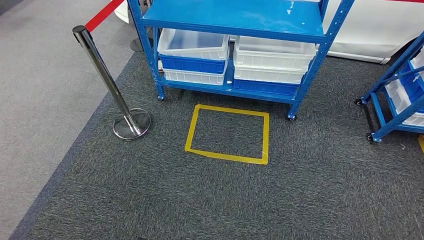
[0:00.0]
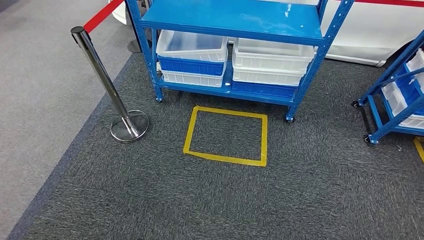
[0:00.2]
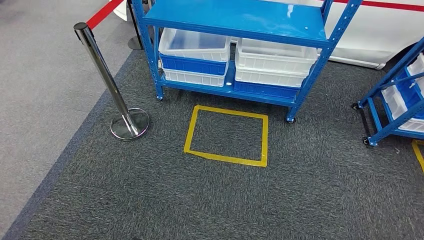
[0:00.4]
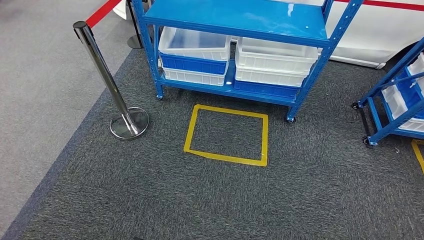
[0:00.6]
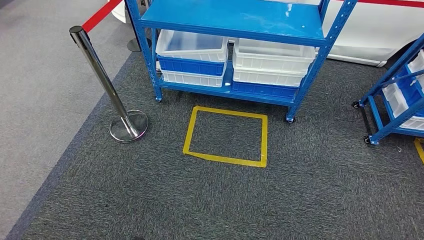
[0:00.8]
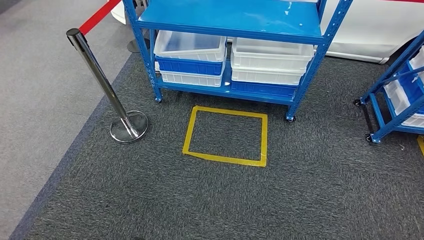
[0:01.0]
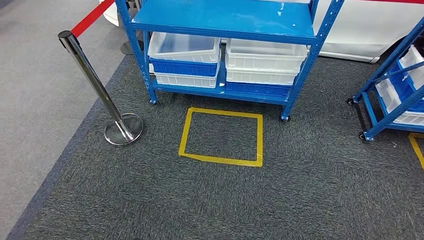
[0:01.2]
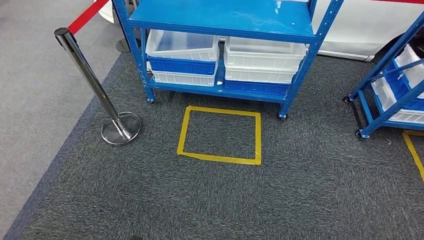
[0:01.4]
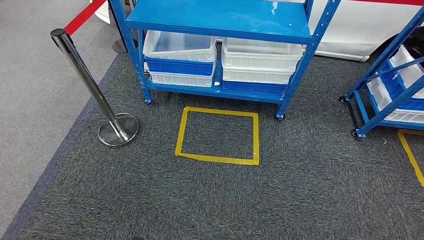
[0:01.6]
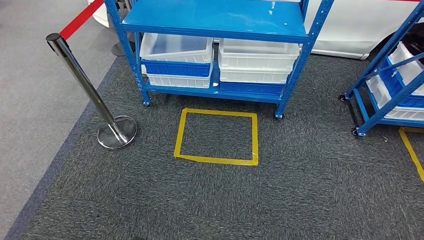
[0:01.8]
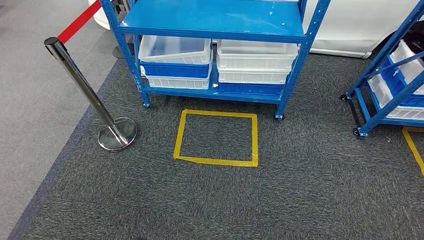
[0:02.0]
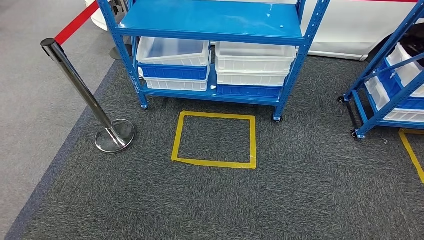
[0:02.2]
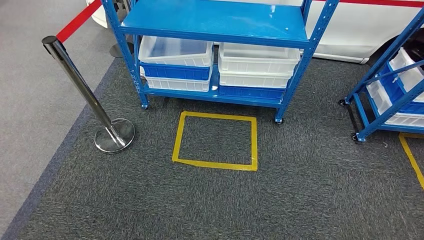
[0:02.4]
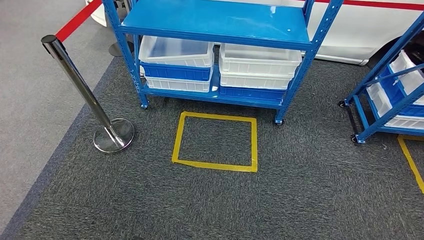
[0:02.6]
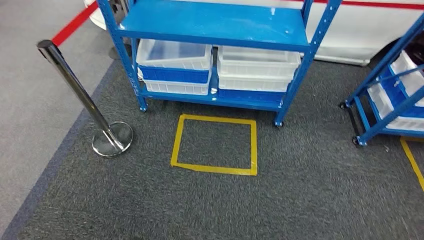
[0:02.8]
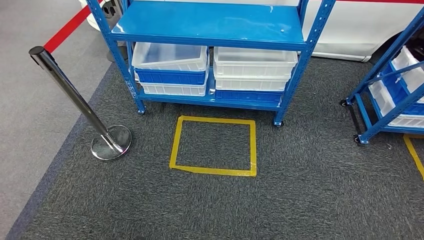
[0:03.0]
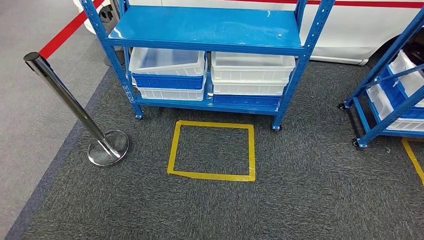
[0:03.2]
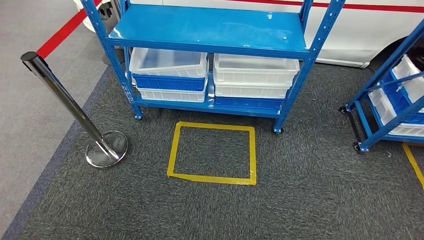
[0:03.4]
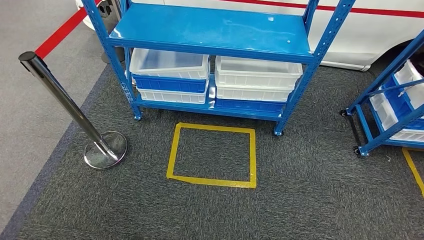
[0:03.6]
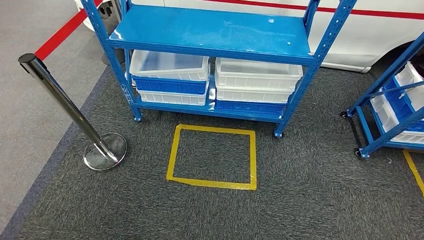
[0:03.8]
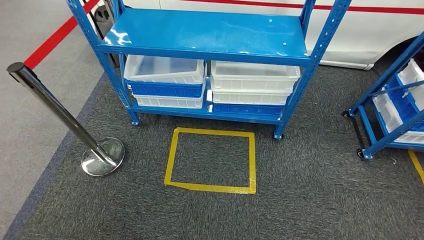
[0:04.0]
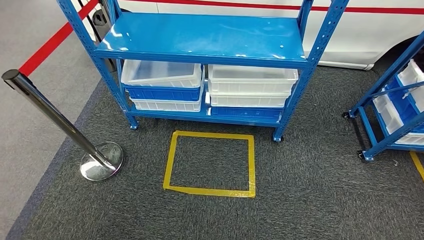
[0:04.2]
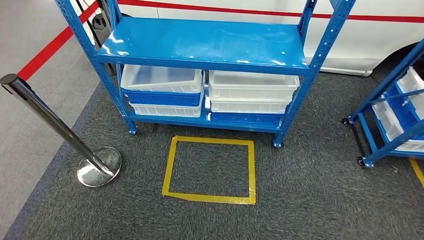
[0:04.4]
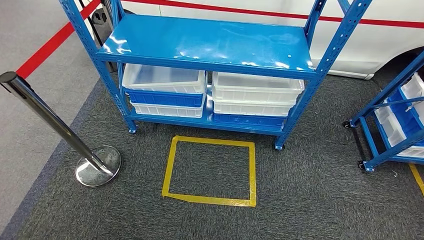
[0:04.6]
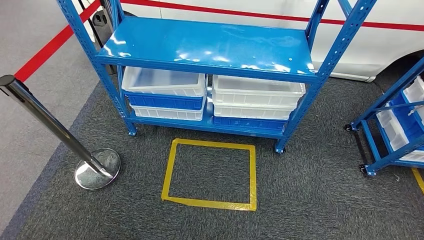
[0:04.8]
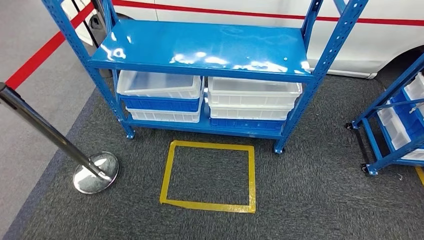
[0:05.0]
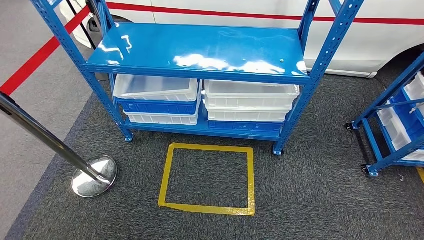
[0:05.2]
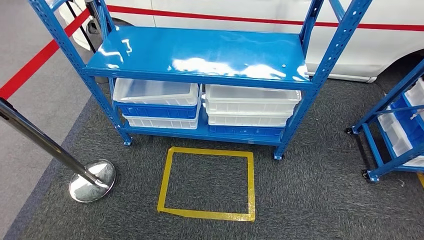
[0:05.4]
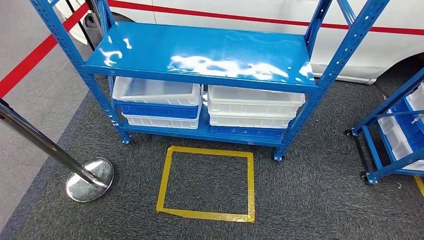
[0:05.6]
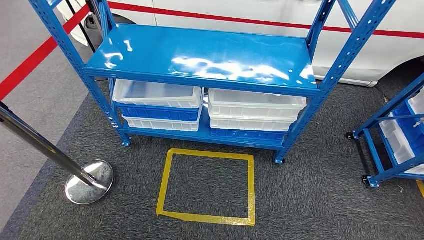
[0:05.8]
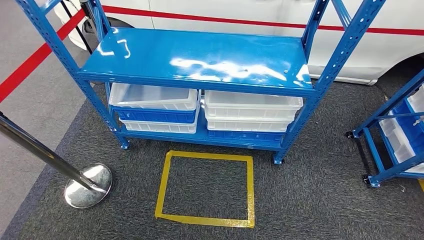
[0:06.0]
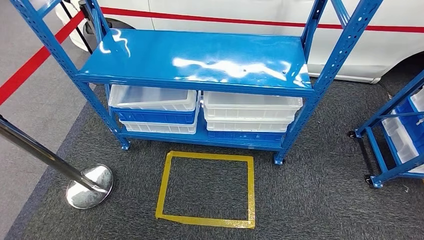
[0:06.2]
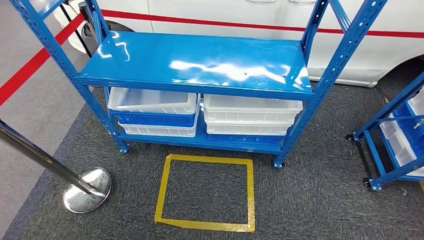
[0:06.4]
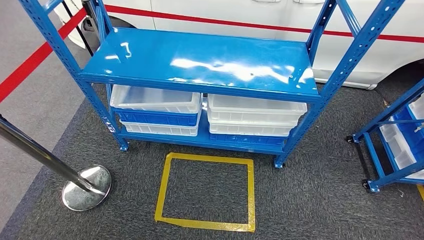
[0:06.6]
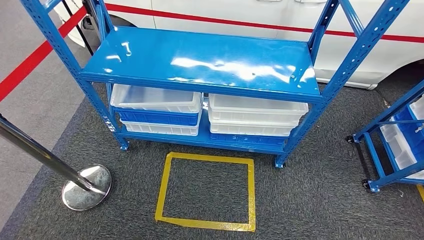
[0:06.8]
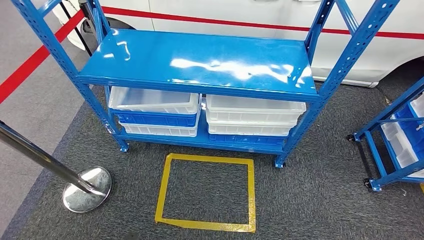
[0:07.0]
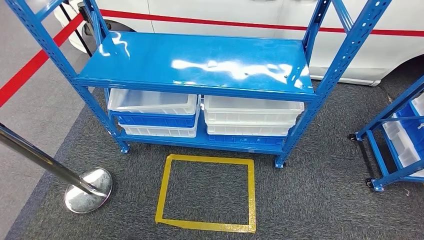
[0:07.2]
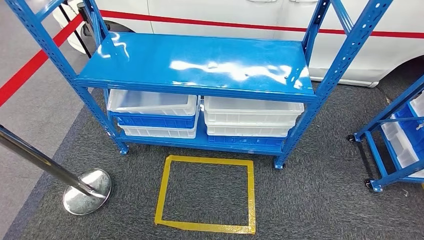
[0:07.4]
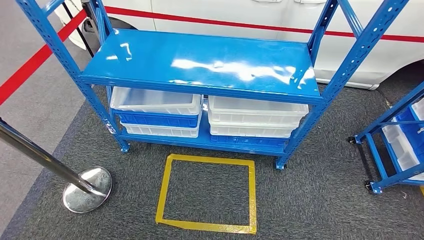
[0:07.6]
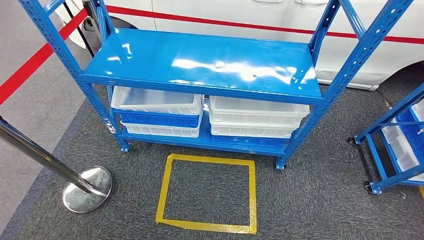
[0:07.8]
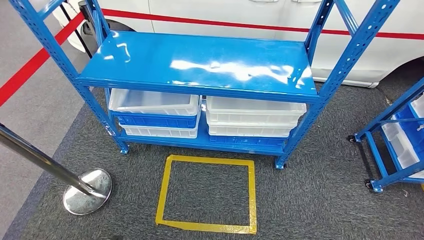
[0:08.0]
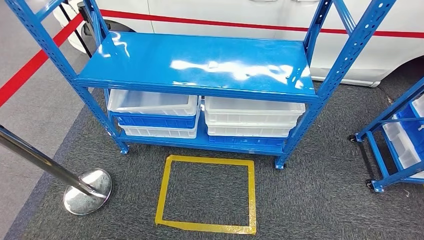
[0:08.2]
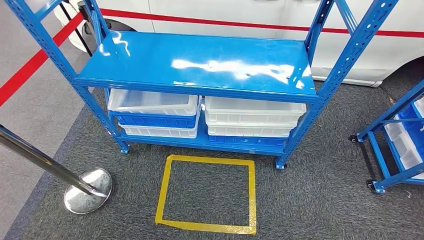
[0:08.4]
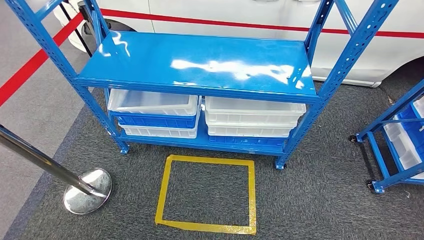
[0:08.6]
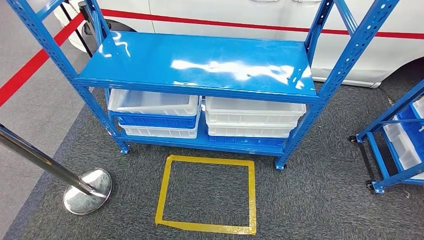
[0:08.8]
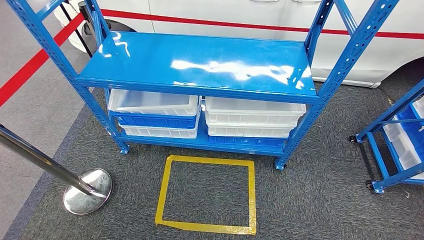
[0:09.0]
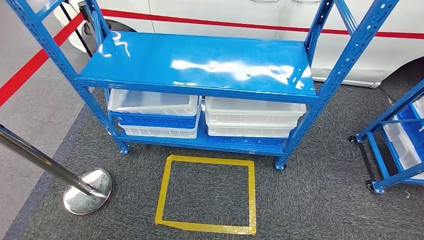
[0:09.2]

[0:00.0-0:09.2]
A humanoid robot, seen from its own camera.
Step, 0:00.0 to 0:09.0: Return to the initial position at the shelf.
